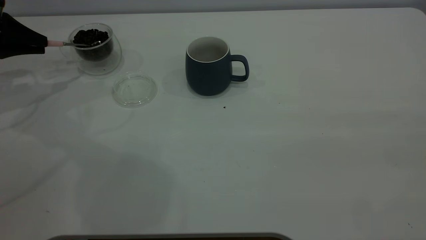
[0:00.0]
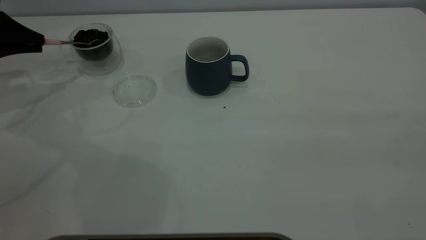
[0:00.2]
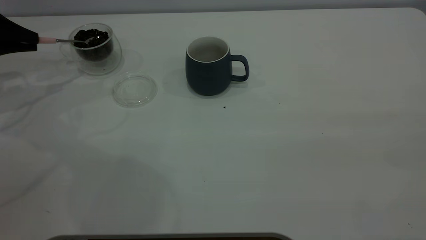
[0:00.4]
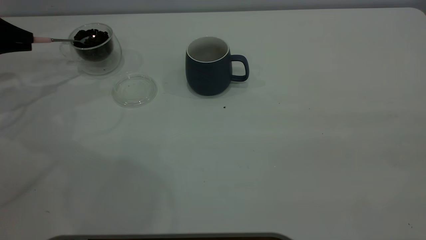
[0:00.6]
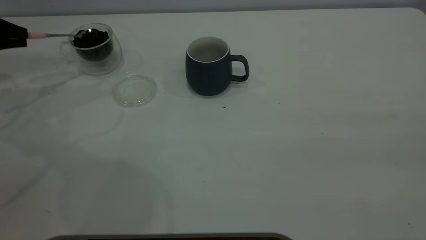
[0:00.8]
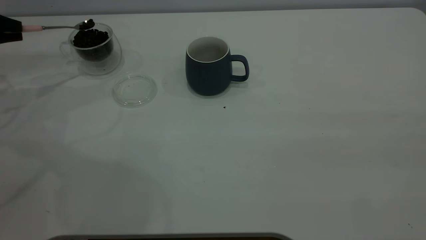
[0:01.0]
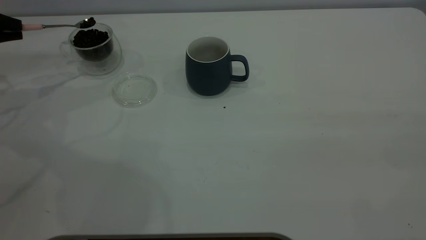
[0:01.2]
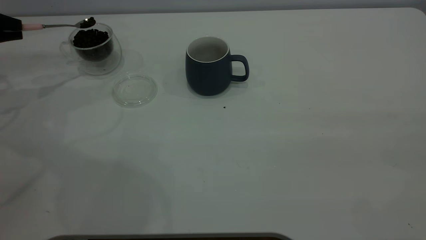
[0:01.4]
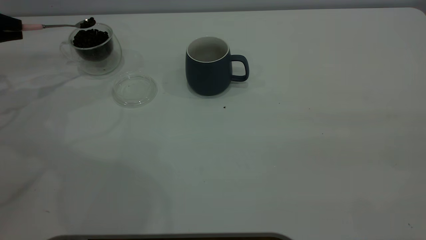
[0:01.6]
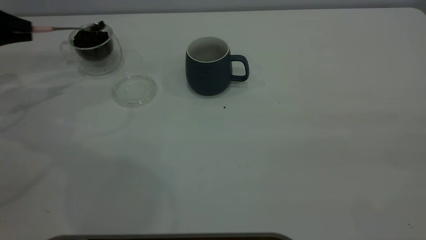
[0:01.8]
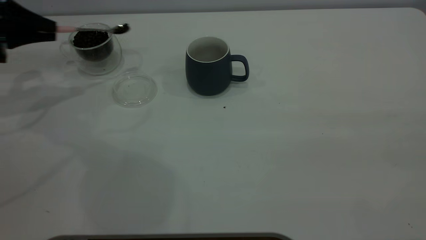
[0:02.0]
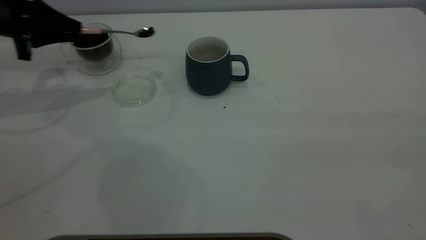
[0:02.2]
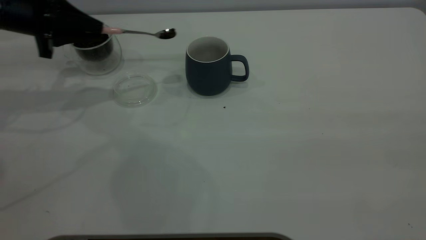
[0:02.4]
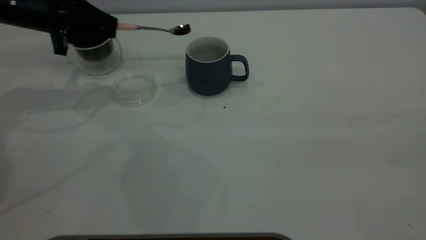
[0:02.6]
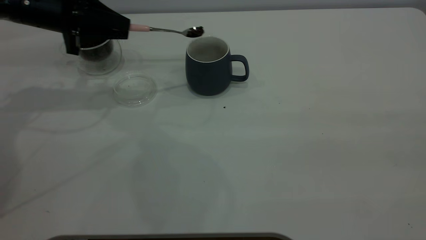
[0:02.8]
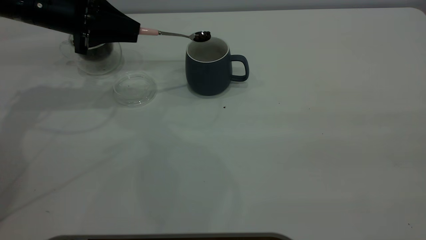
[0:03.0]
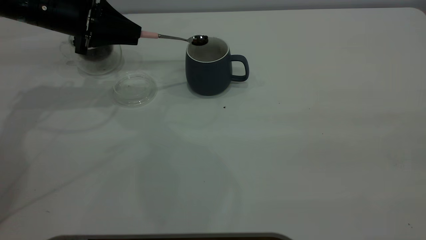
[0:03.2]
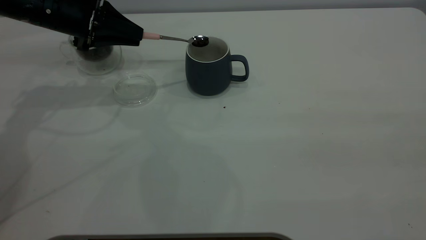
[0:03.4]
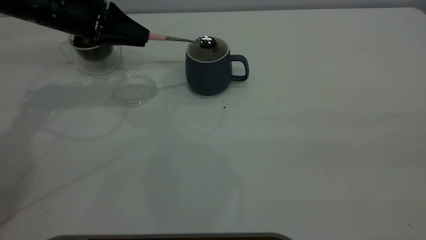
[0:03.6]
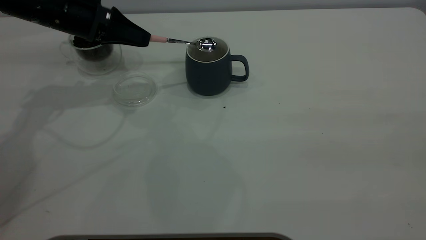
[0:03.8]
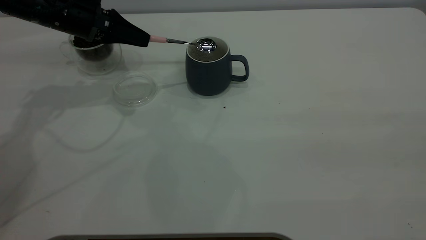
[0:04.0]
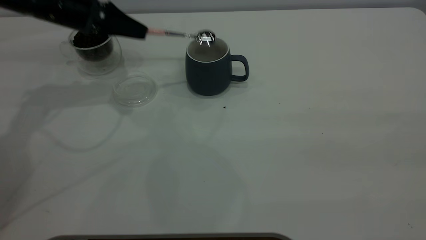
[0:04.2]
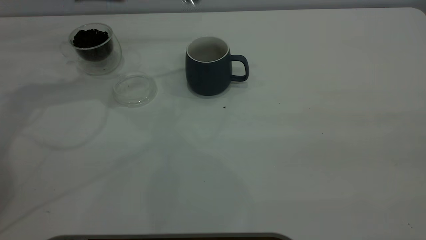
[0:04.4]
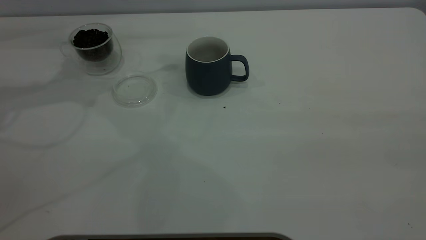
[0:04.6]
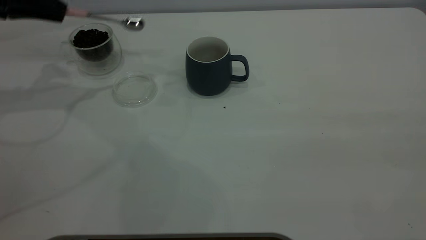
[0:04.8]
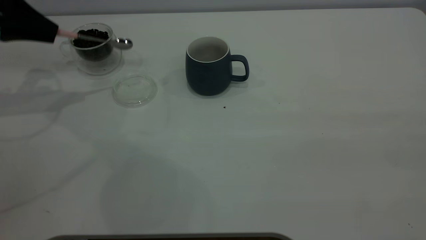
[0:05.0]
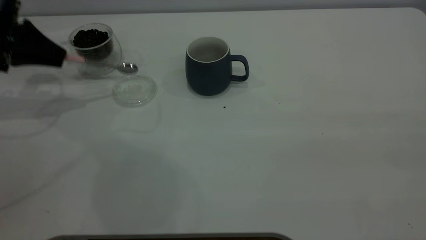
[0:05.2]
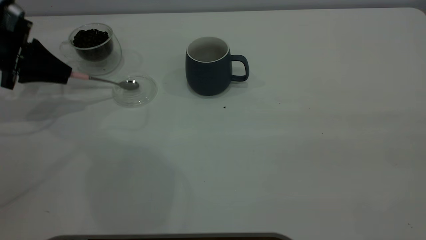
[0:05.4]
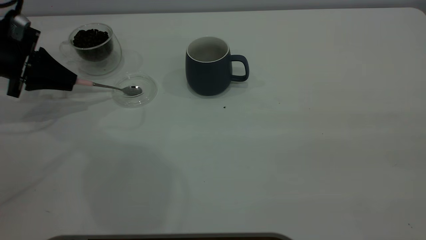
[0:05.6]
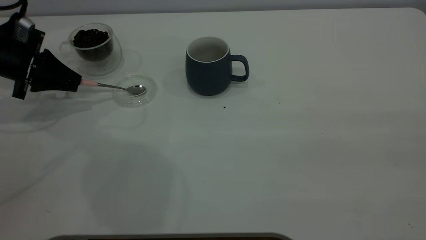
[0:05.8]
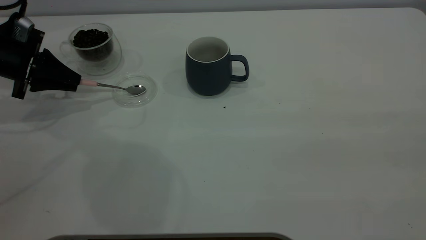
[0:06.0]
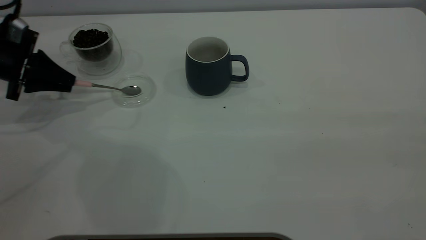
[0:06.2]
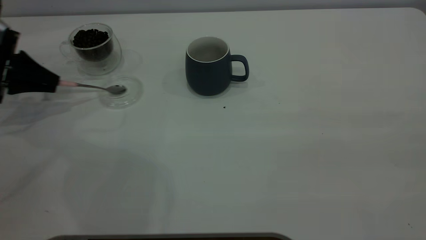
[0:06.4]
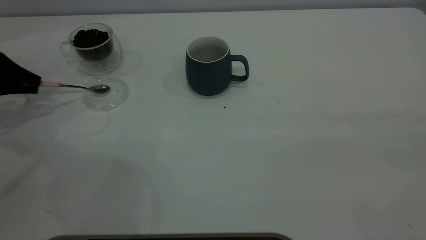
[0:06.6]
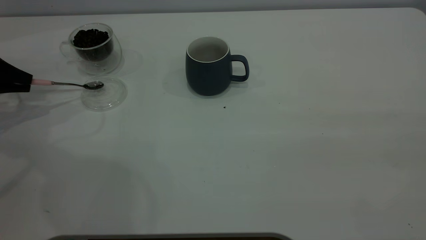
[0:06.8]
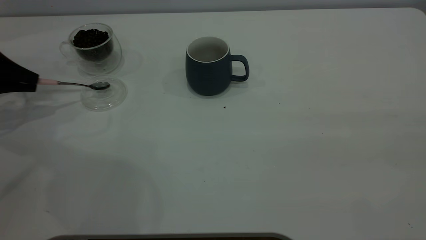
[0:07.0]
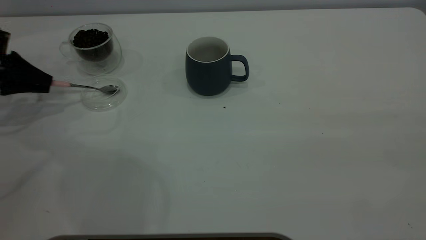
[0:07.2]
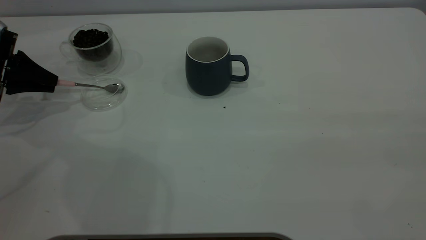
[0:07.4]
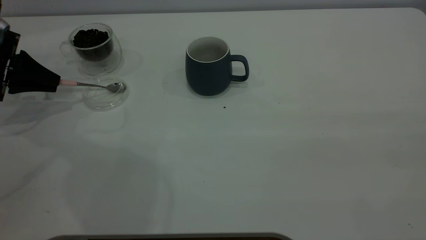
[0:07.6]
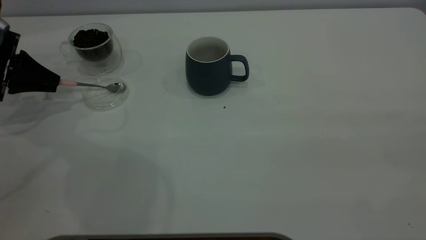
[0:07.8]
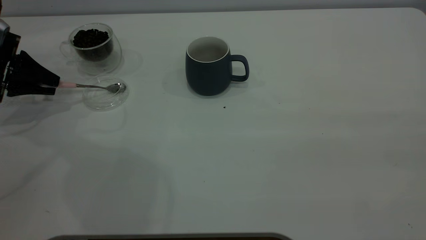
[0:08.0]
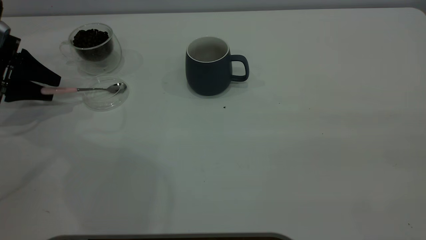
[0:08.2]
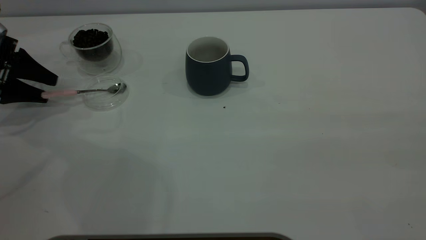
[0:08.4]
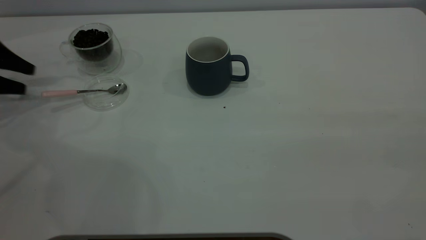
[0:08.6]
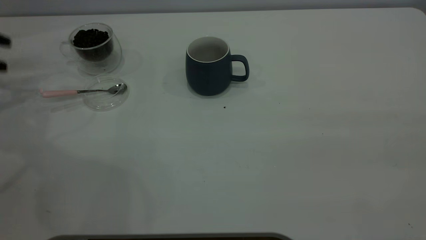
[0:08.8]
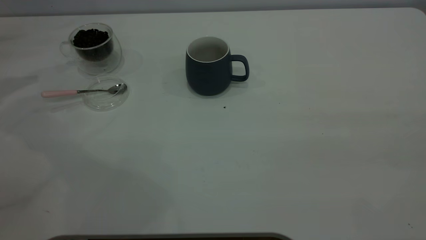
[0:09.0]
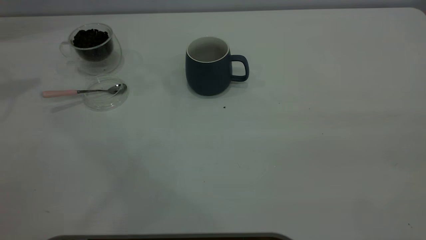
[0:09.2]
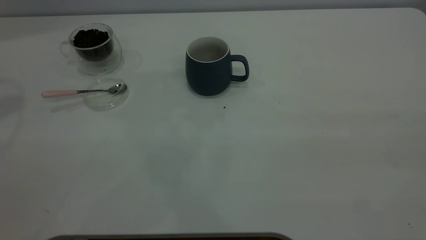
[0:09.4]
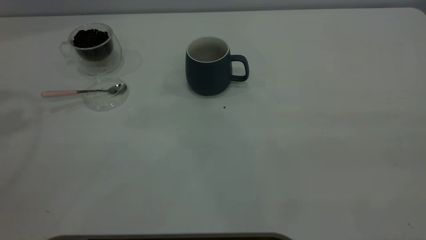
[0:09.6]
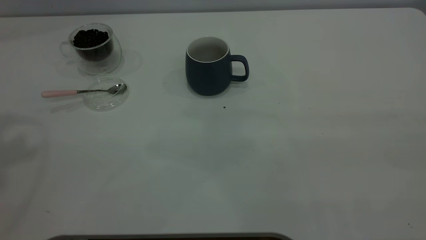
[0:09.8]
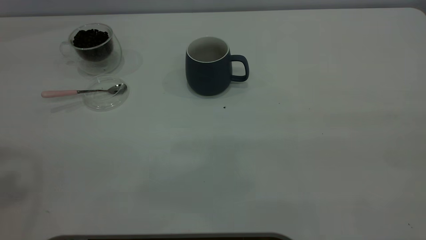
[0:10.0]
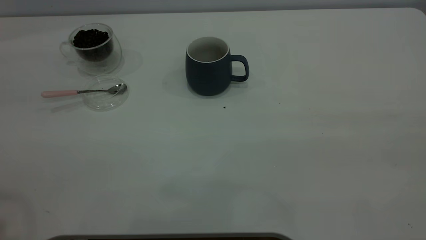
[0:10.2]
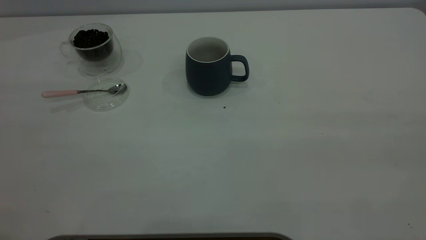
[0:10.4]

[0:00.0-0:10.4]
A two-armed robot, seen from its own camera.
Task of the whole recording: the right gripper place the grey cup in the center of the table, the left gripper take the pink spoon from the cup lid and scoop out the coffee beans from the coffee cup and put them into the grey cup, the left gripper put the spoon back into the cup lid.
Step, 0:00.0 to 0:04.2: Scoop a spoonful of beans into the cup.
Step, 0:04.4 to 0:08.6: Place the spoon back in its original place.
0:00.0 to 0:01.4: The grippers make only small movements.
0:01.4 to 0:03.0: The left gripper moves to the right, some 20 cm.
0:03.0 to 0:04.4: The left gripper is displaced upward by roughly 10 cm.
0:04.4 to 0:06.0: The left gripper is displaced downward and to the left by some 15 cm.
0:07.4 to 0:09.0: The left gripper heads upward and to the left, covering roughly 15 cm, and opens.

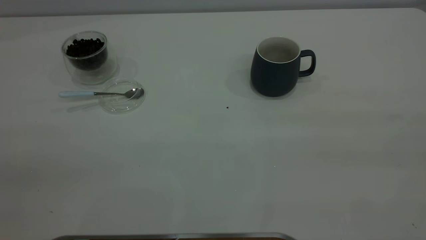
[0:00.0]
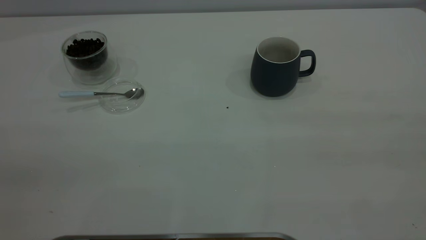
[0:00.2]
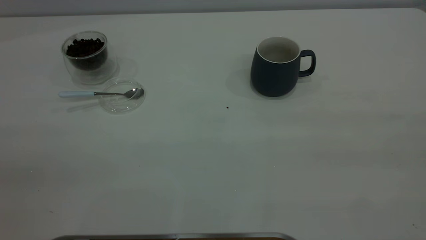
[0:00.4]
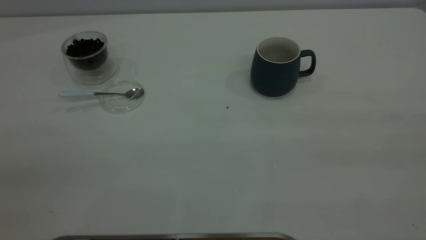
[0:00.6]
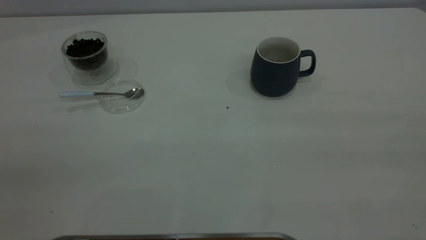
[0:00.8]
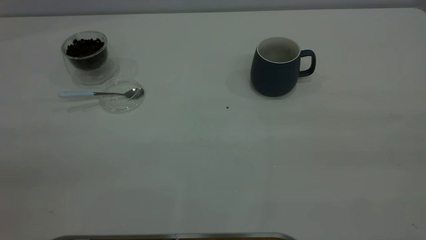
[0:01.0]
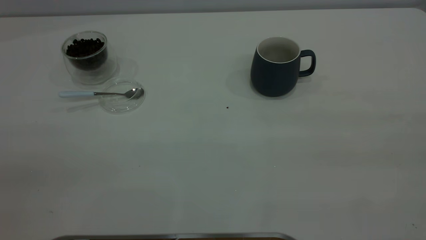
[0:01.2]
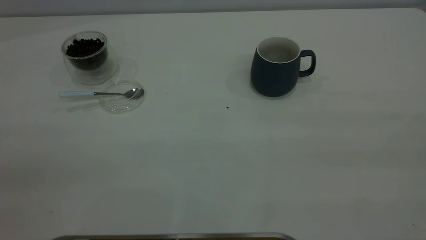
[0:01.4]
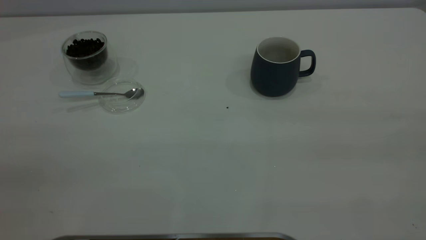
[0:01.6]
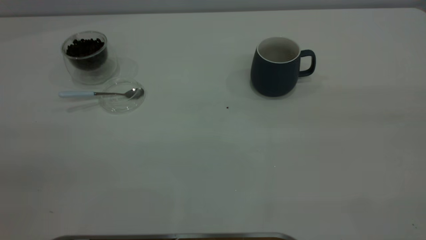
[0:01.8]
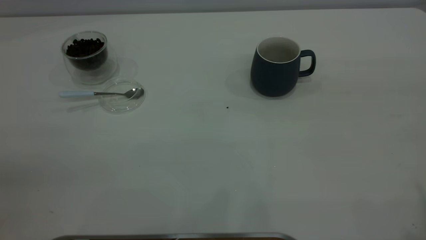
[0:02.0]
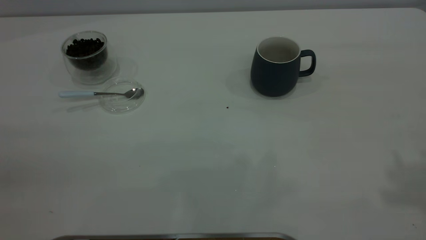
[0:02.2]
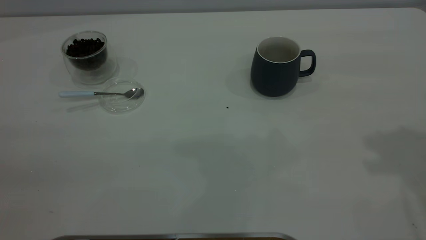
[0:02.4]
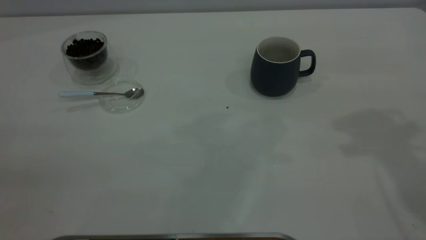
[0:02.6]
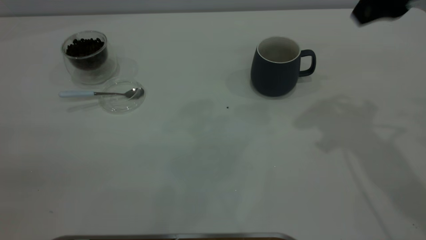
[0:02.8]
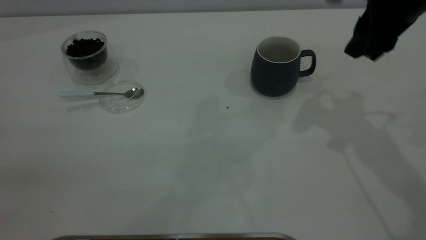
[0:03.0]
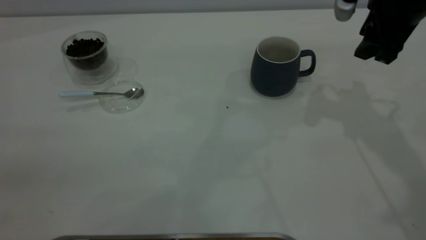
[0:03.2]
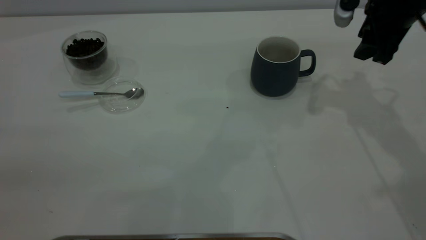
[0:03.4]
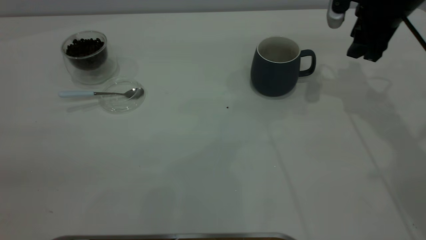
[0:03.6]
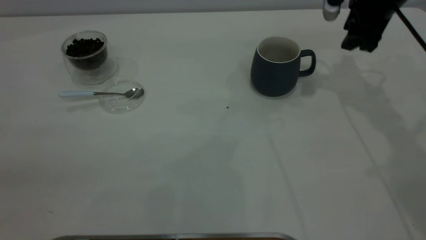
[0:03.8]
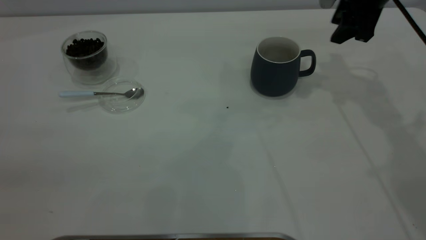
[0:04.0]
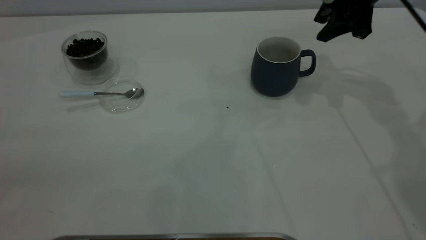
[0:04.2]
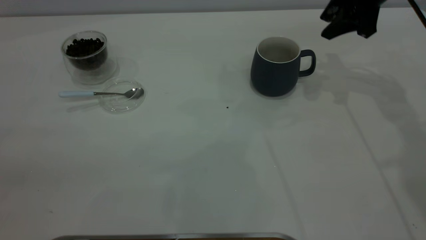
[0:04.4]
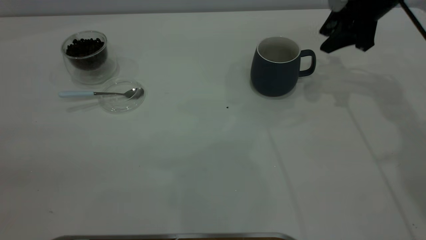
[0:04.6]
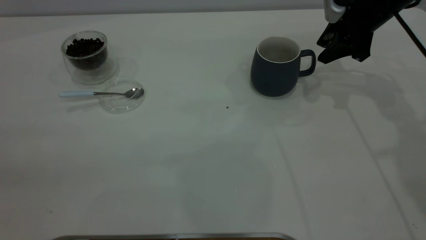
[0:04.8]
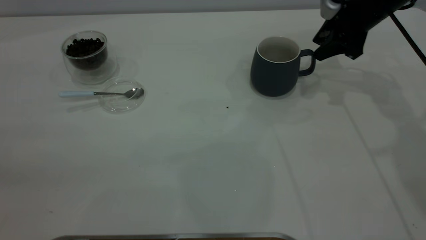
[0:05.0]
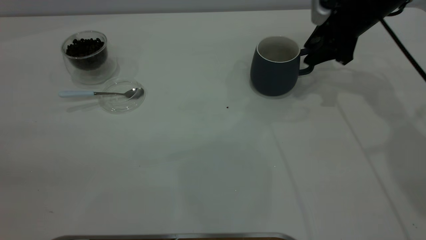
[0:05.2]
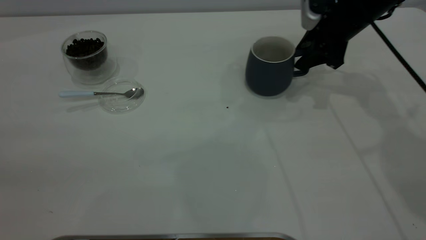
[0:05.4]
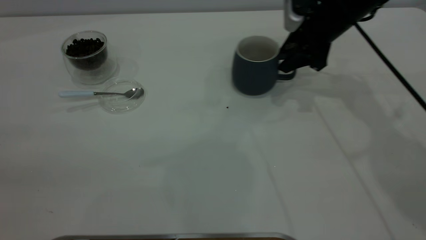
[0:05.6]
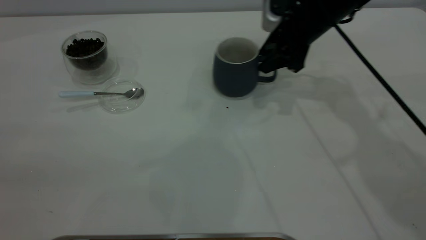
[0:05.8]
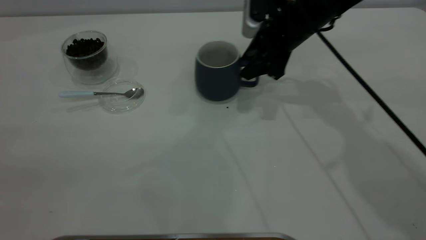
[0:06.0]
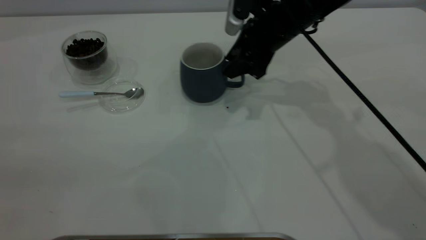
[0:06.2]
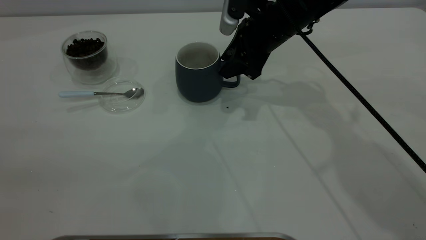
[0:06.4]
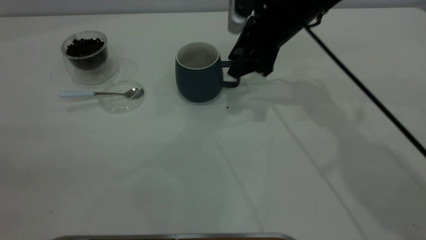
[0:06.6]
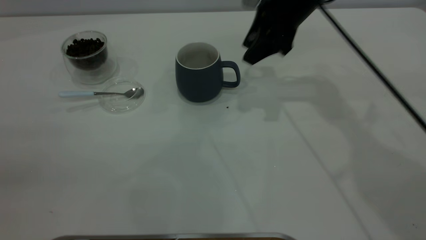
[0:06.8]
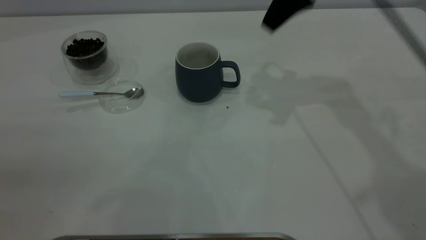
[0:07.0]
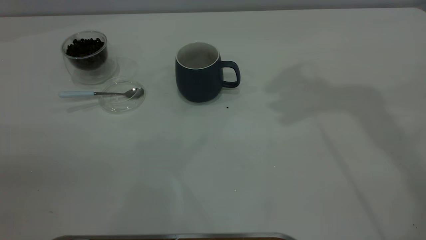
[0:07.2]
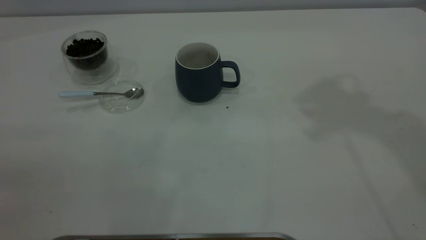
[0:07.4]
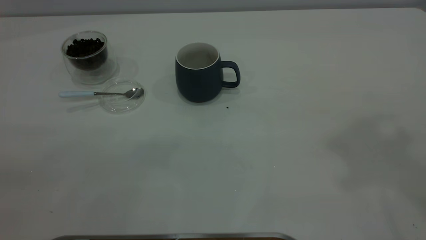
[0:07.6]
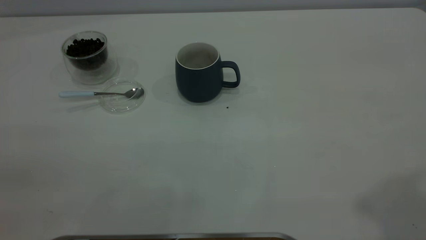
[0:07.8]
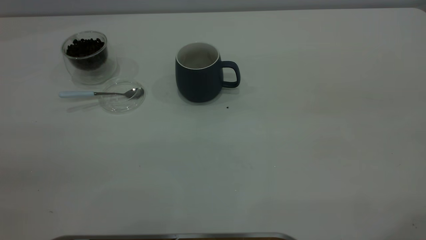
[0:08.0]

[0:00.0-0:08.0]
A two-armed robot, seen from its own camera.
Task of the whole recording: the right gripper place the grey cup in the center of the table, the left gripper take the blue spoon from the cup lid and scoop out the coffee beans from the coffee cup and put them into the grey cup, the left gripper put the spoon back into the cup lid.
Step, 0:00.0 to 0:06.8: Move the cup to the center of view.
0:01.6 to 0:03.2: The right gripper moves forward and downward, about 40 cm.
0:03.2 to 0:04.8: The right gripper is displaced forward and downward by some 10 cm, and closes up.
0:04.8 to 0:06.4: The right gripper goes roughly 15 cm to the left.
0:06.4 to 0:08.0: The right gripper travels backward, upward and to the right by some 50 cm, and closes its fingers.
